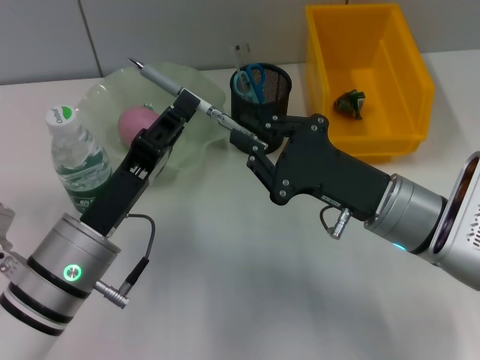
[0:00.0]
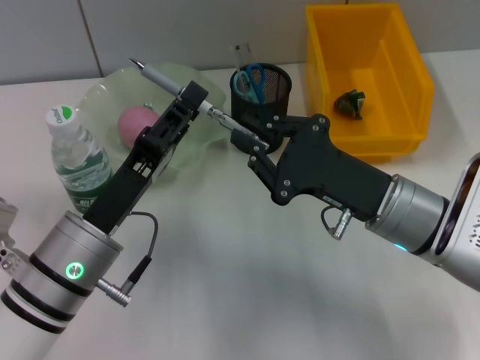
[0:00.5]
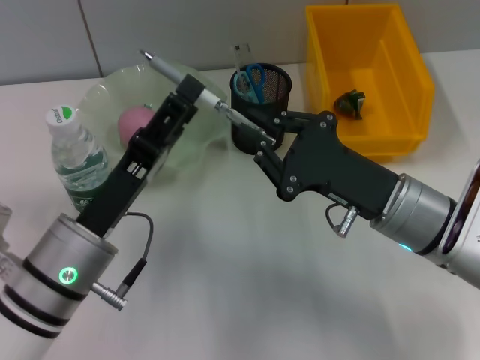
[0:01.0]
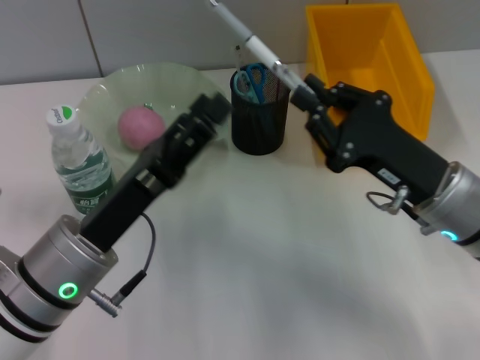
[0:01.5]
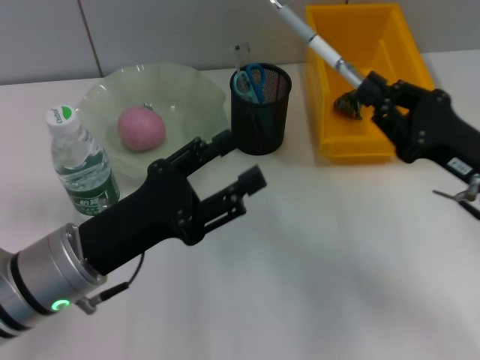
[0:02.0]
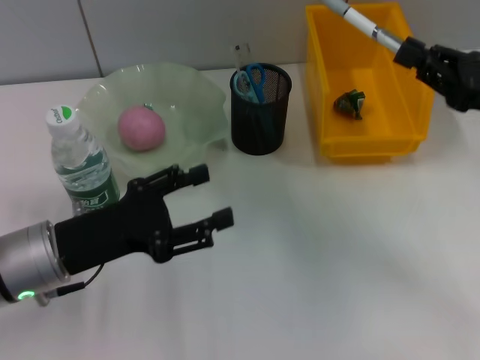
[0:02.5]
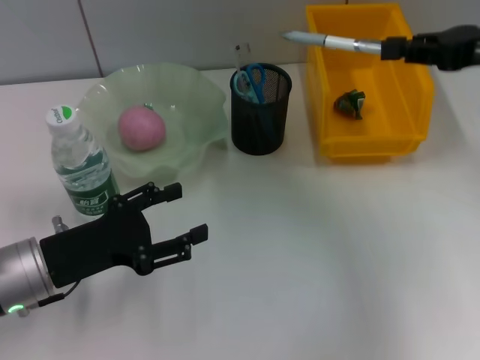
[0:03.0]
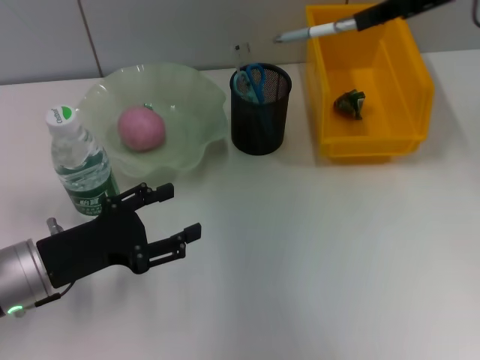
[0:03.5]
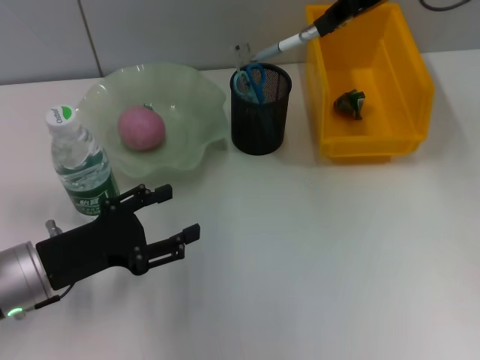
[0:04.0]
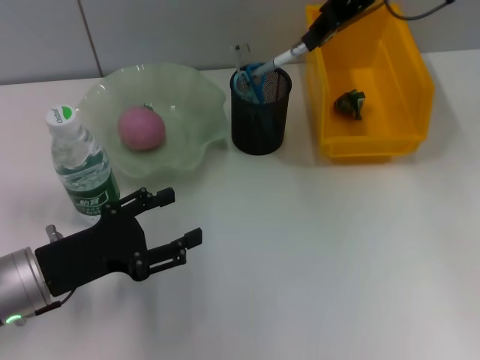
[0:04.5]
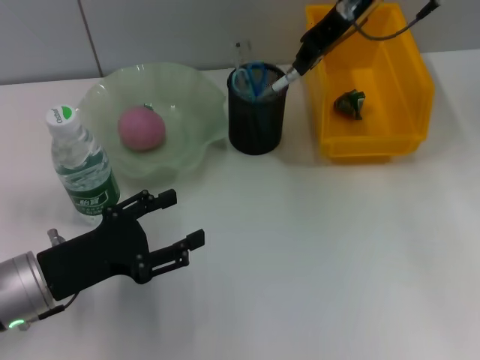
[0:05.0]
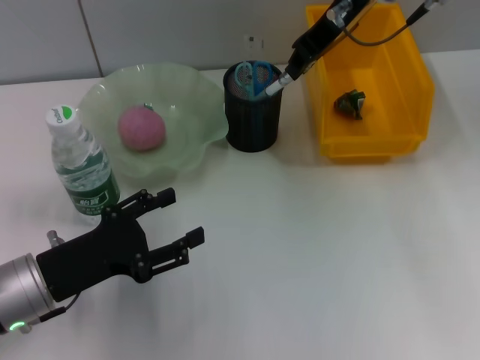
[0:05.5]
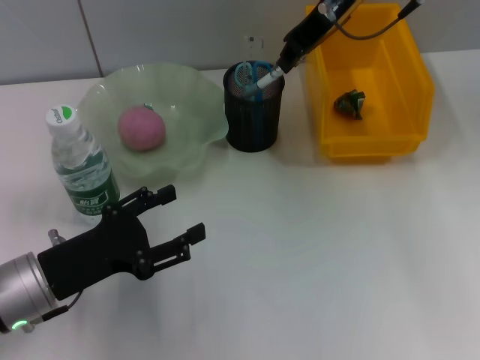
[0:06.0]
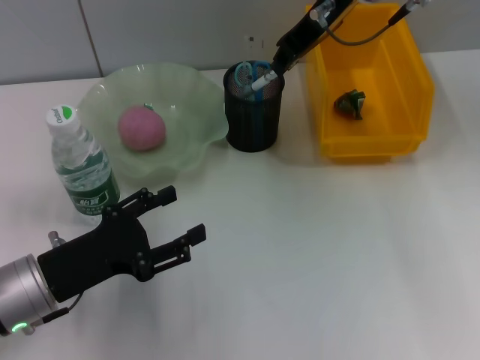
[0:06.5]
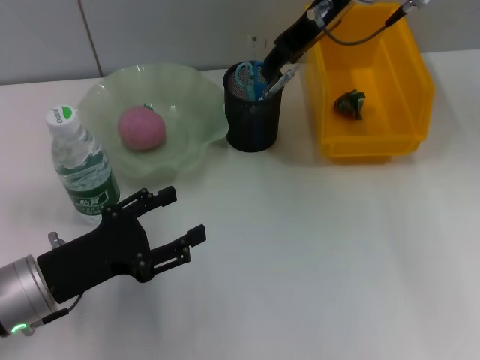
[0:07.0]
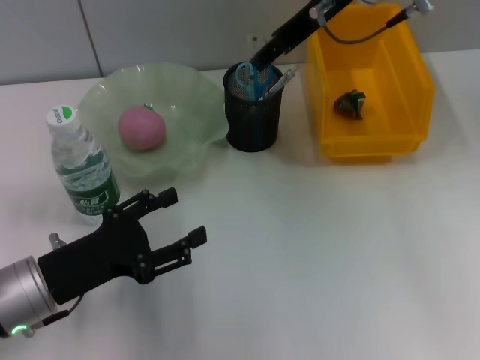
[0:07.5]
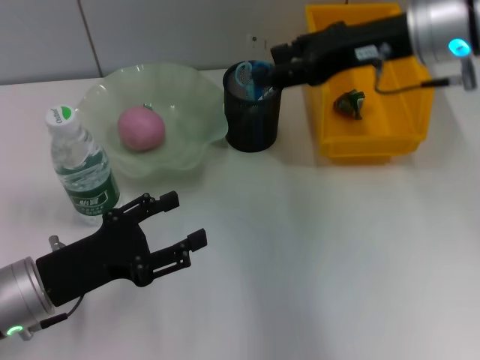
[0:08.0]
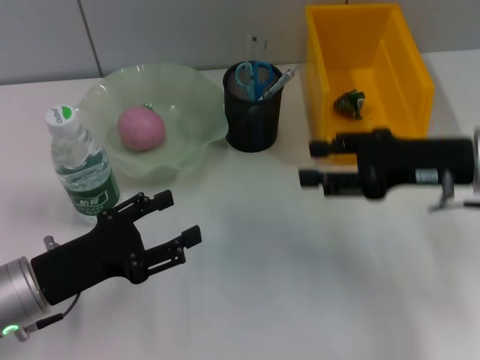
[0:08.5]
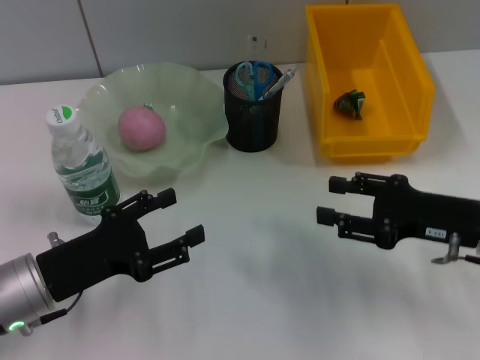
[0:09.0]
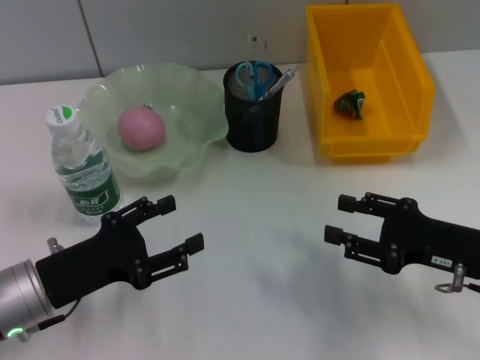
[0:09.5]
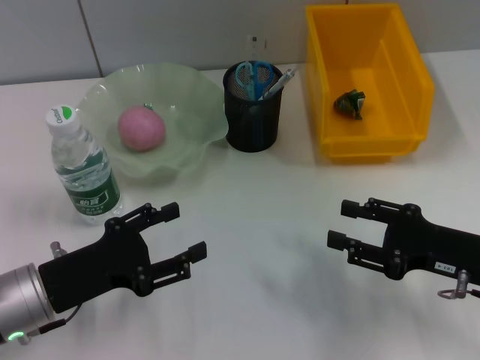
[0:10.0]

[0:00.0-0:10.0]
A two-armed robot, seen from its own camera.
Step, 0:01.5 to 0:07.0: Place the gray spring-action pen into the pen holder with the right hand.
0:00.0 to 0:02.0: The left gripper opens, while the right gripper heads to the right, covering about 10 cm.
0:02.0 to 0:04.0: The left gripper goes some 5 cm to the left, while the right gripper moves upward and forward, approximately 25 cm.
0:04.0 to 0:06.0: The right gripper is displaced to the left by roughly 5 cm.
0:06.0 to 0:08.0: The right gripper goes about 10 cm backward and to the right, and opens.
0:08.0 to 0:10.0: The right gripper heads downward, backward and to the right, covering some 25 cm.
